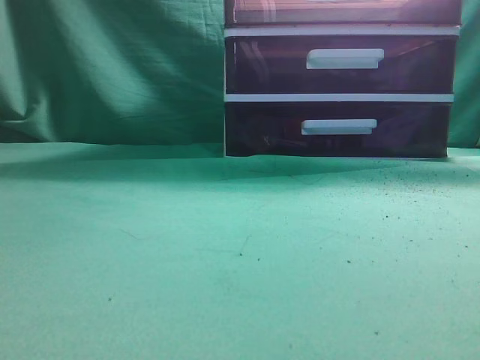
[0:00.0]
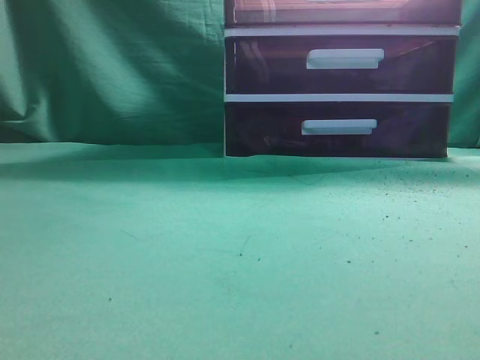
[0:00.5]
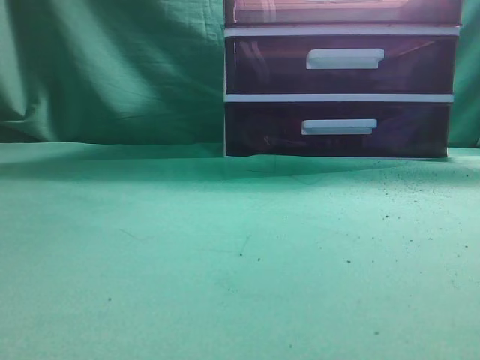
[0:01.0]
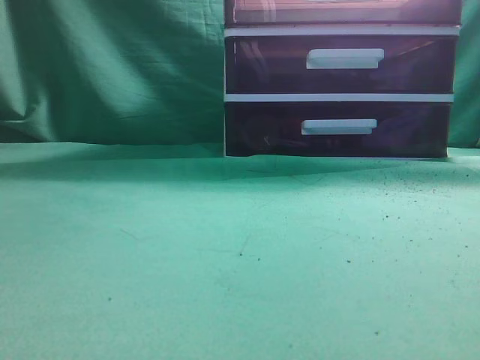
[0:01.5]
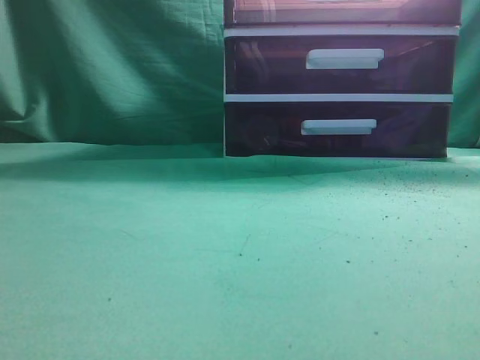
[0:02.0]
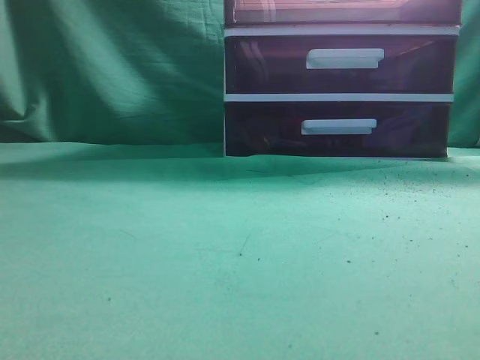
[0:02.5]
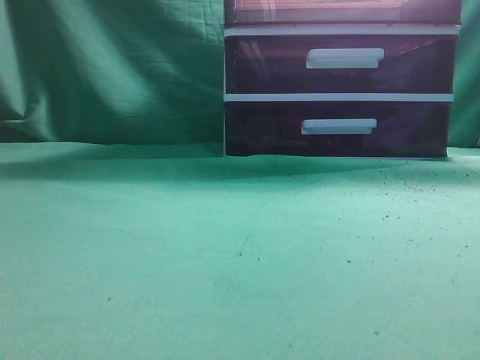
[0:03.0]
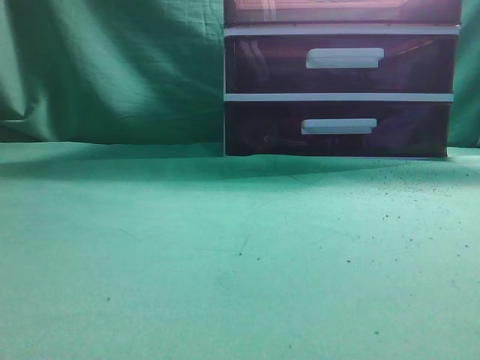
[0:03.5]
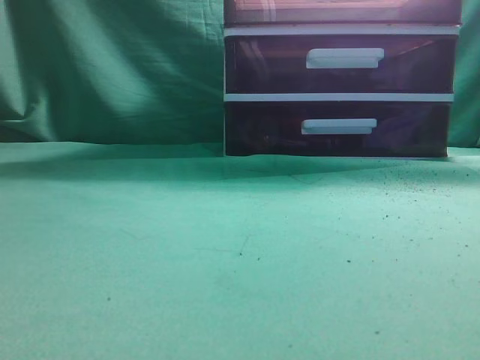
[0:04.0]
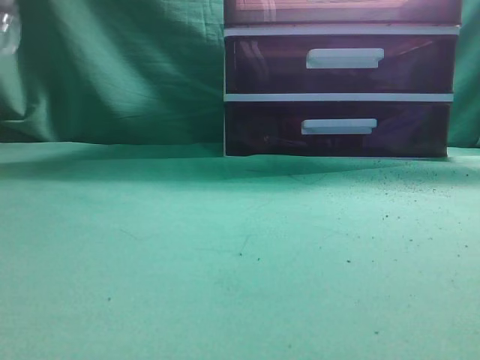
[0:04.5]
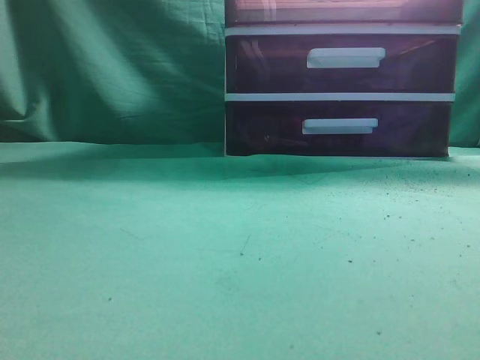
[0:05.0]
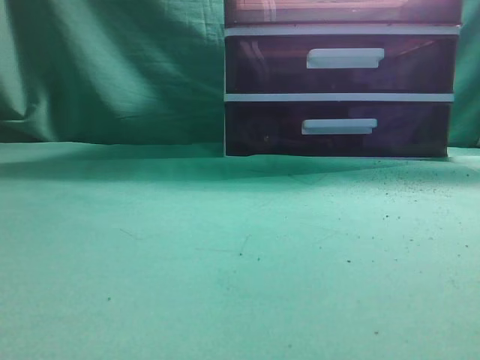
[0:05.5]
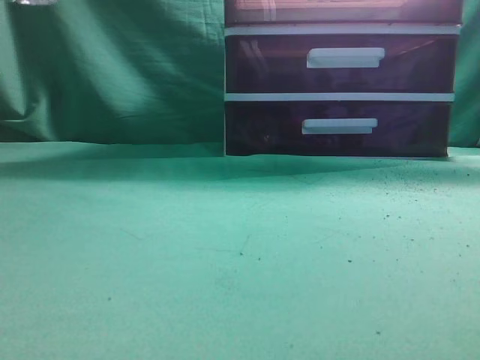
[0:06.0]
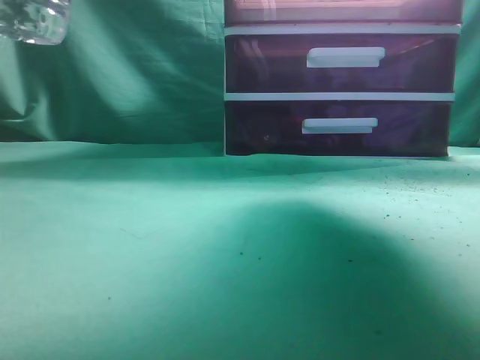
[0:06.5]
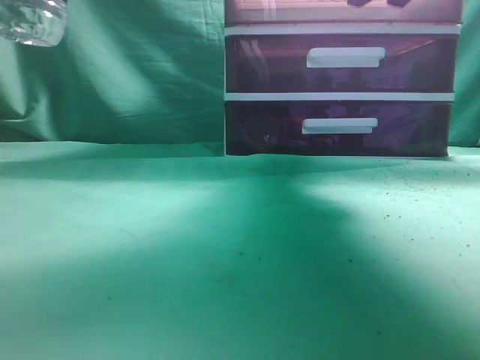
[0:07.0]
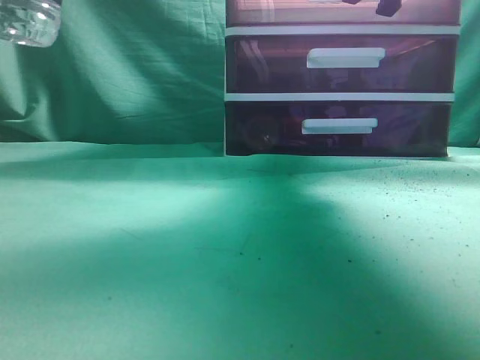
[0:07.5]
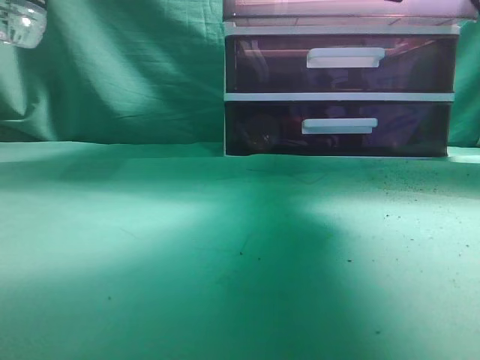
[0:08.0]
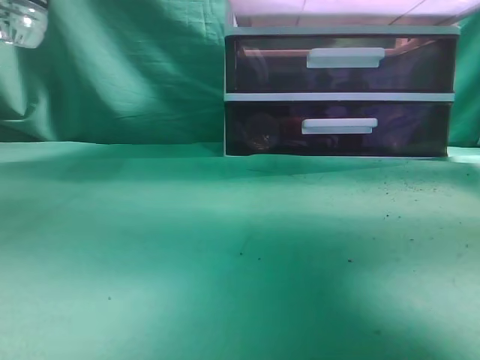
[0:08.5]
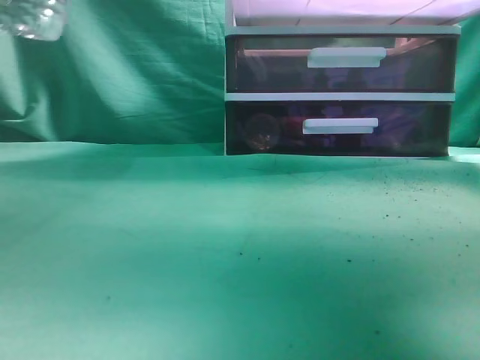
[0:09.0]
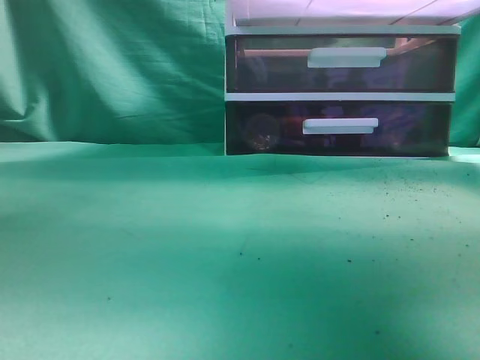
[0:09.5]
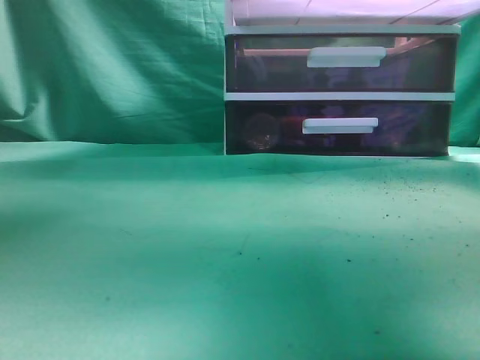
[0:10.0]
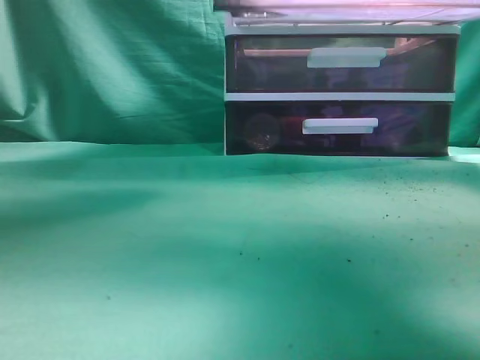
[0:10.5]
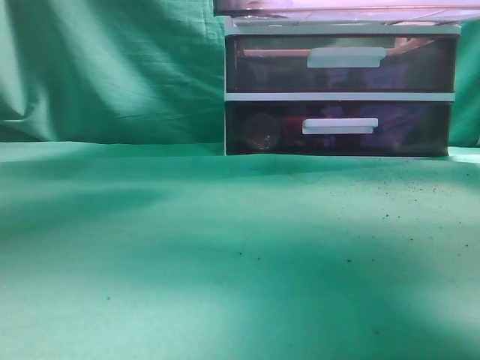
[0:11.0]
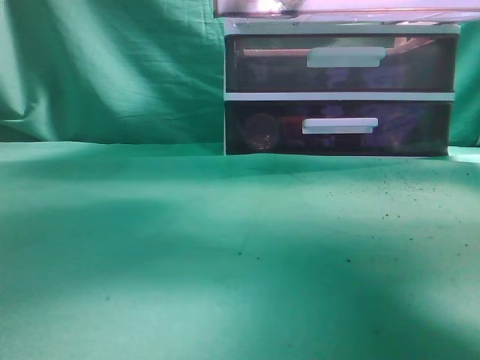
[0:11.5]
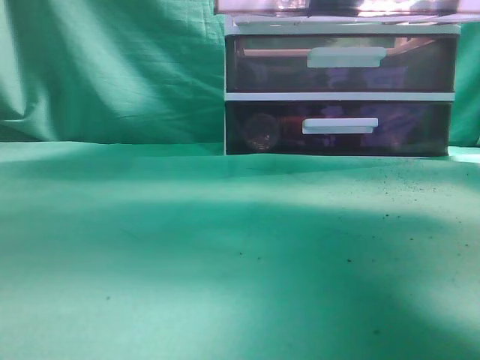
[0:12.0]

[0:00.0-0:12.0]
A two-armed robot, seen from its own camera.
Task of the whole recording: place the water bottle into the drawer.
Step, 0:00.0 to 0:09.0: Open the drawer.
0:06.0 to 0:08.0: The right gripper moves forward and to the left, some 15 cm, and opens and closes again.
0:08.0 to 0:10.0: The left gripper heads forward, to the right and upward, covering approximately 20 cm; the right gripper travels backward by about 10 cm.
0:10.0 to 0:12.0: The left gripper heads to the right and downward, covering about 15 cm.

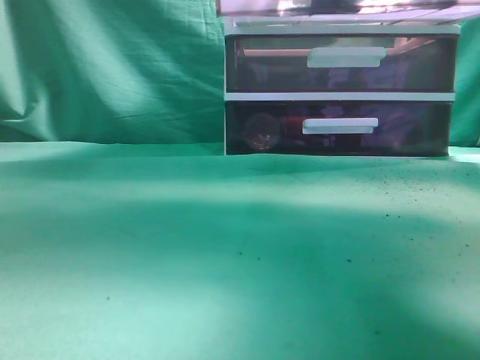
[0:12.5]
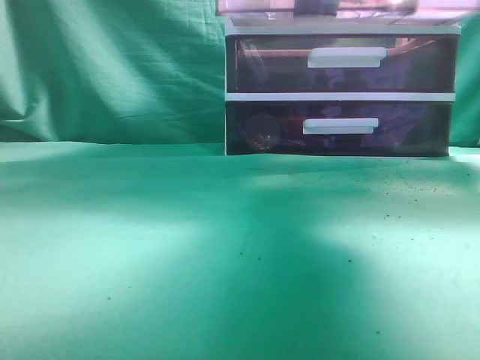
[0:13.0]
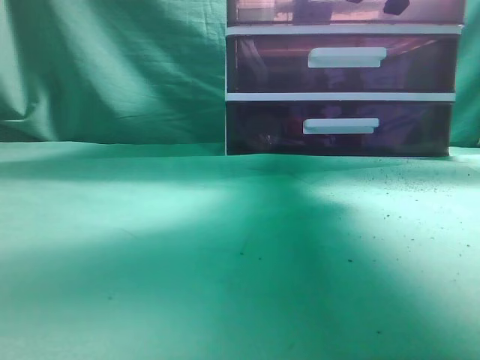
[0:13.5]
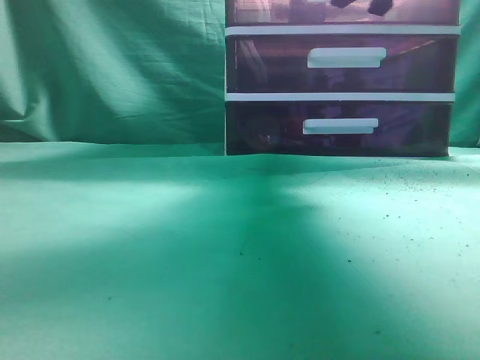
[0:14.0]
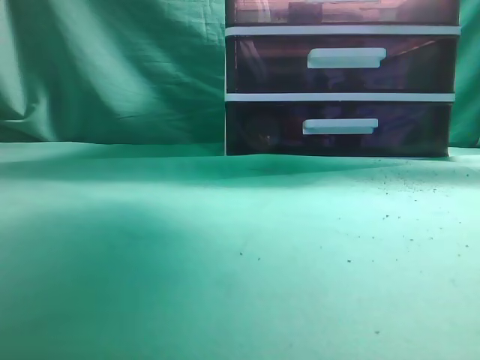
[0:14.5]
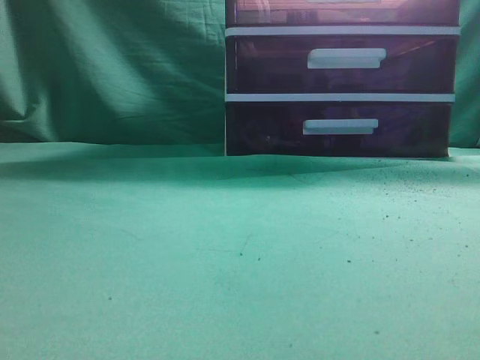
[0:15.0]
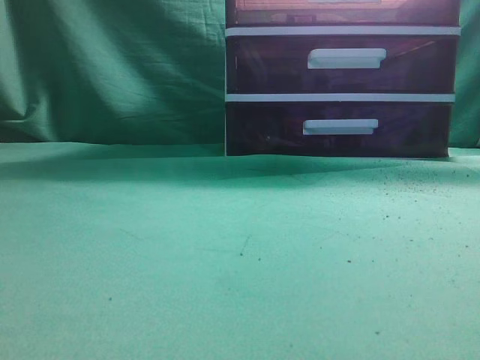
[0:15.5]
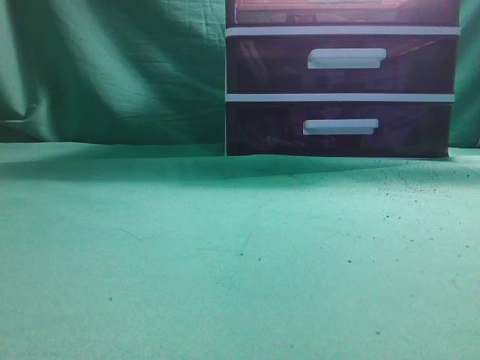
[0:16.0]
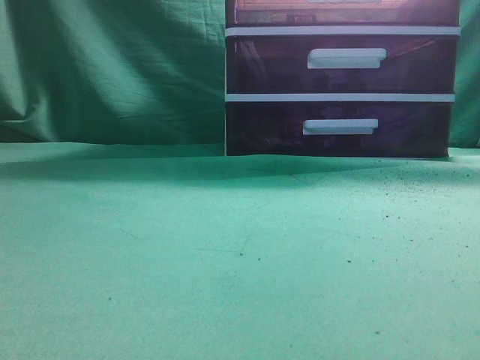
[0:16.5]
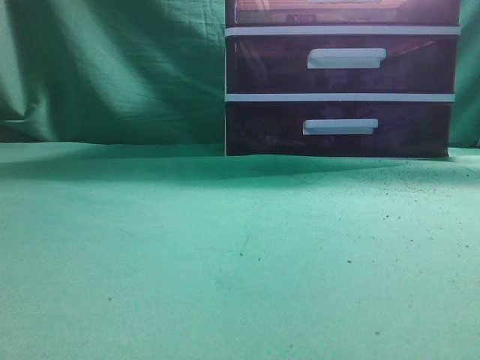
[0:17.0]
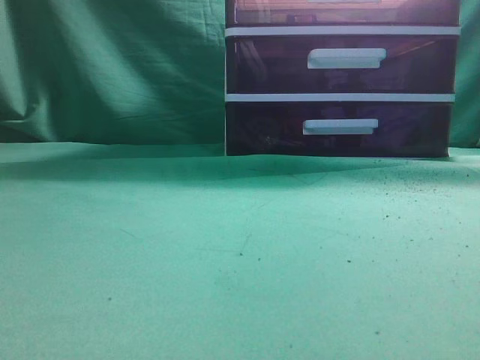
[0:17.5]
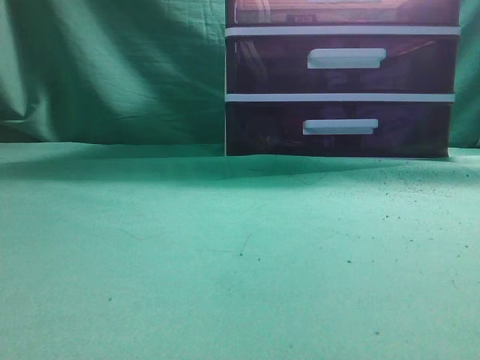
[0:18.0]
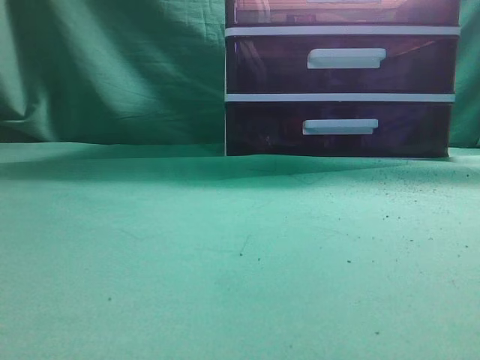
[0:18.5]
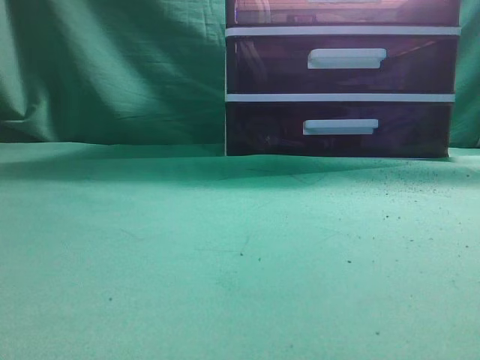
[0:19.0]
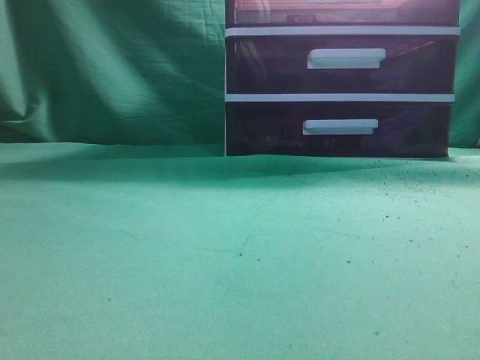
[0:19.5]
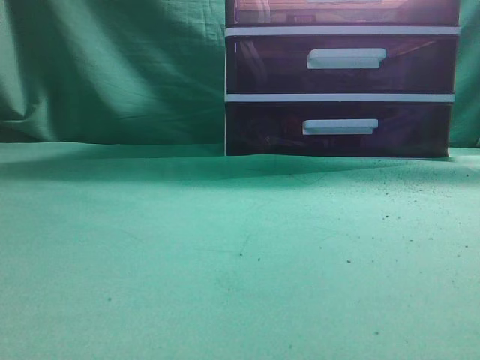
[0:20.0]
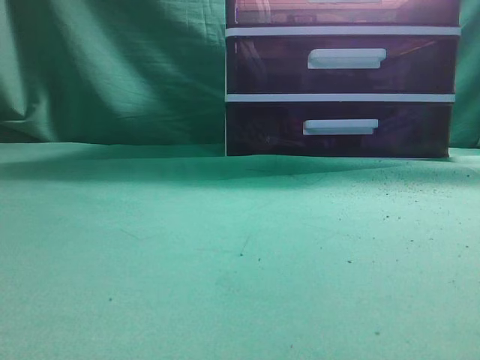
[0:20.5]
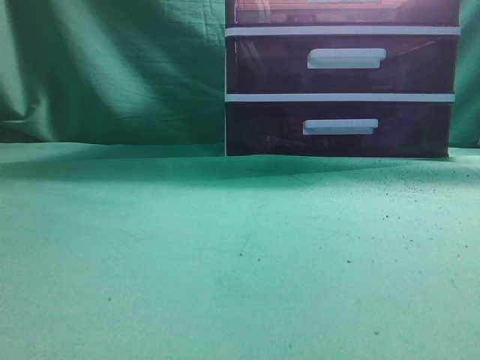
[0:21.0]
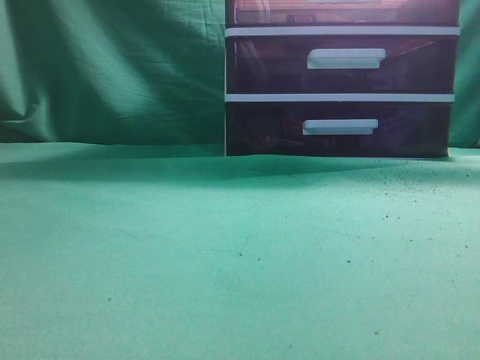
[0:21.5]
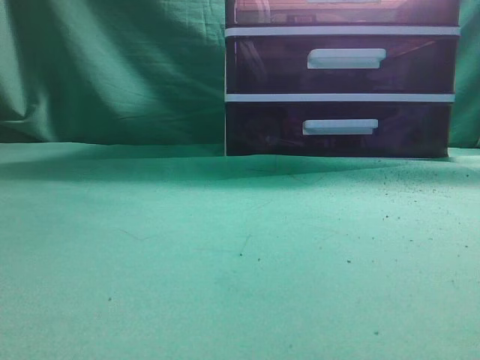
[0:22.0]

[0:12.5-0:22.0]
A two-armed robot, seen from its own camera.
Task of the whole recording: place the water bottle into the drawer.
Step, 0:13.0 to 0:14.0: Close the drawer.
0:12.5 to 0:14.5: The right gripper moves forward and upward, approximately 15 cm, and opens; the left gripper goes some 25 cm backward and to the left.
0:14.5 to 0:16.5: The right gripper heads backward and upward, covering approximately 30 cm, and closes its fingers; the left gripper shifts about 30 cm downward and backward.
